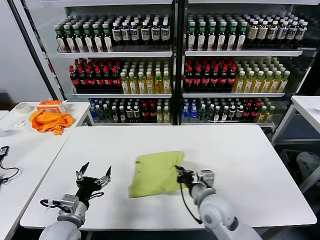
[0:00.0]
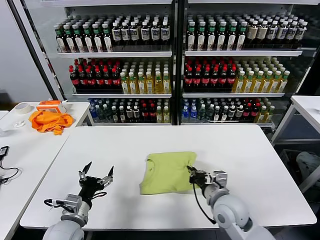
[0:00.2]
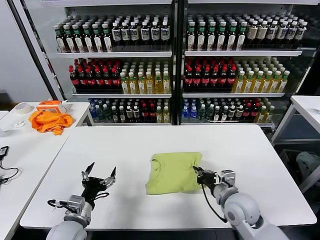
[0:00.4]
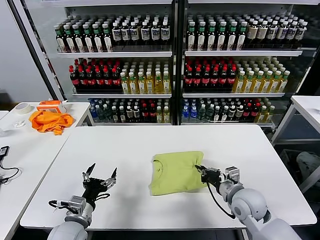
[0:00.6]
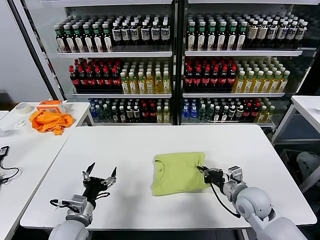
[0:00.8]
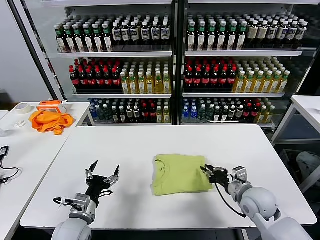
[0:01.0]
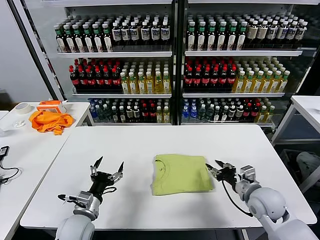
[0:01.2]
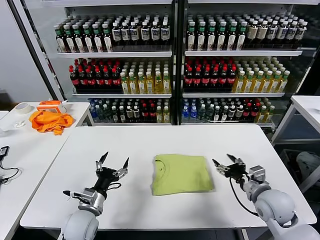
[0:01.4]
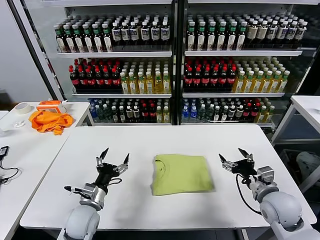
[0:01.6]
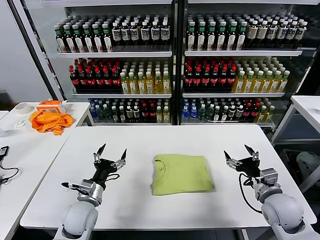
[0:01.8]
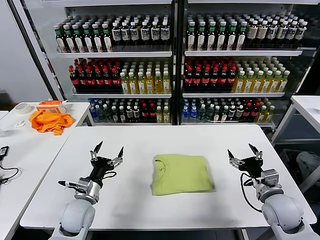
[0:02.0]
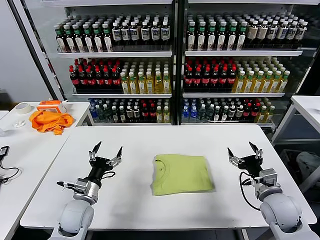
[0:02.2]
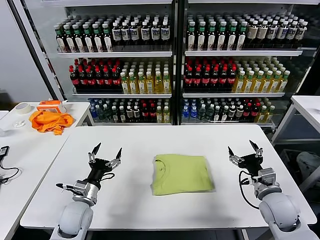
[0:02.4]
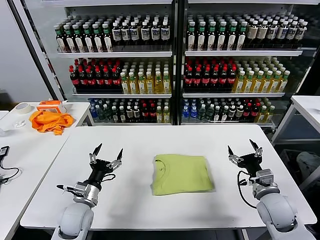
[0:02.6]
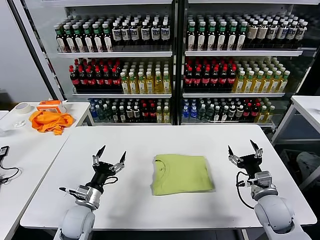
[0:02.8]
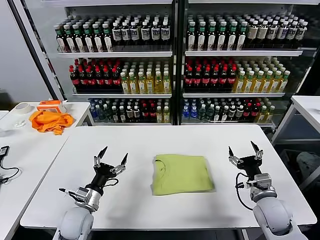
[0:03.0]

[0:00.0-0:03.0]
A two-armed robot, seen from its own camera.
Task of the whole recording: fold and organize the clothes.
0:00.0 to 0:01.6: The left gripper heads forward, covering some 5 cm. Meanwhile the right gripper goes about 20 cm to the right, and opens its fingers.
